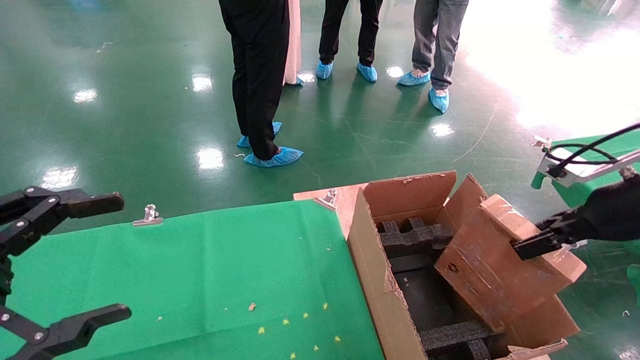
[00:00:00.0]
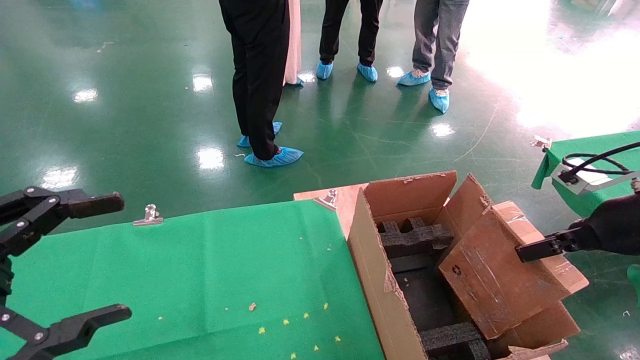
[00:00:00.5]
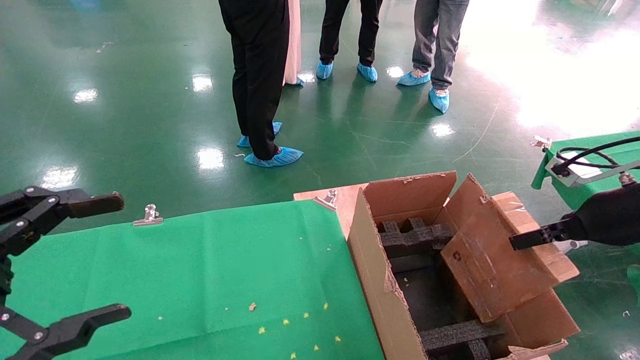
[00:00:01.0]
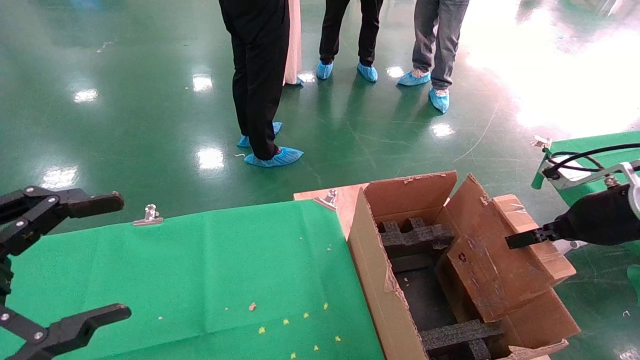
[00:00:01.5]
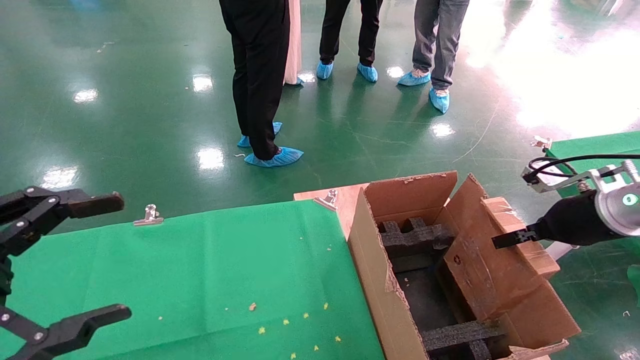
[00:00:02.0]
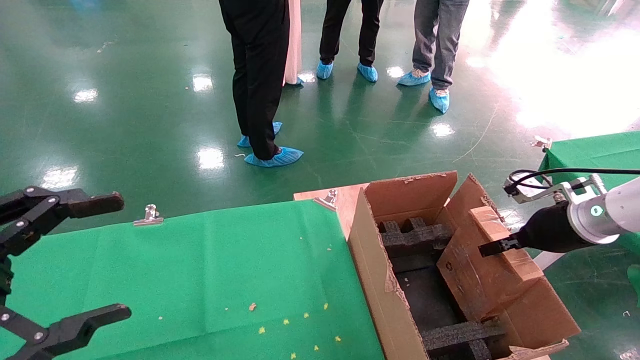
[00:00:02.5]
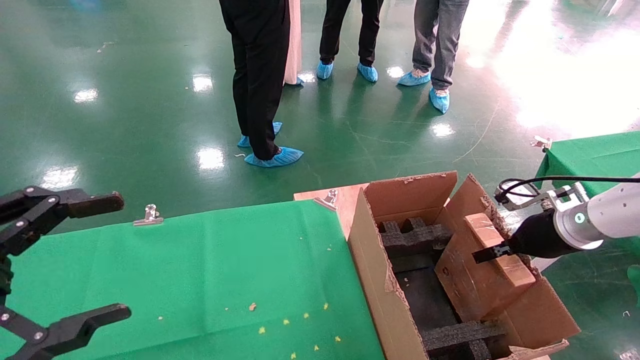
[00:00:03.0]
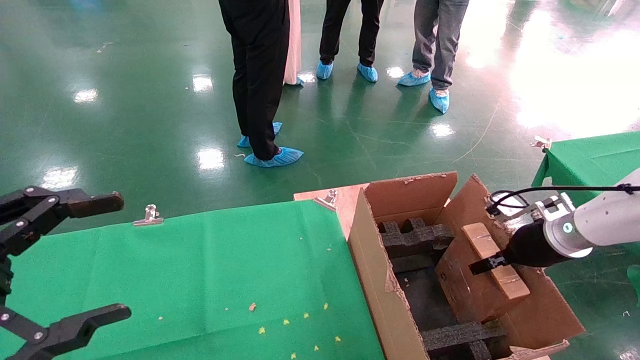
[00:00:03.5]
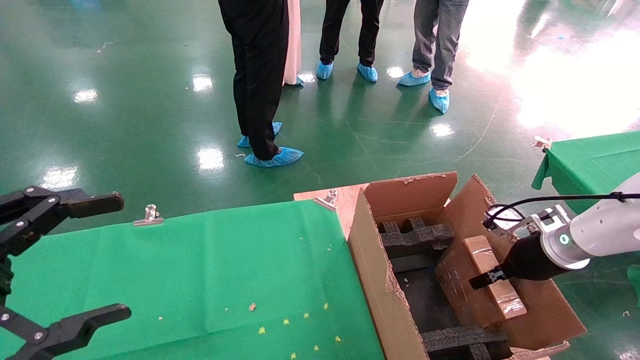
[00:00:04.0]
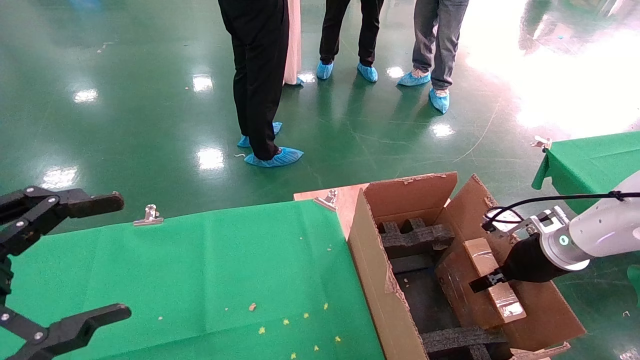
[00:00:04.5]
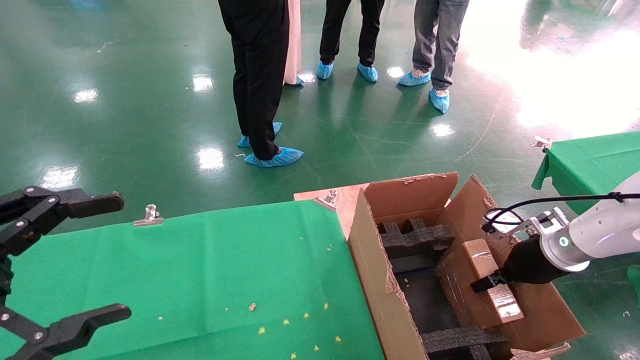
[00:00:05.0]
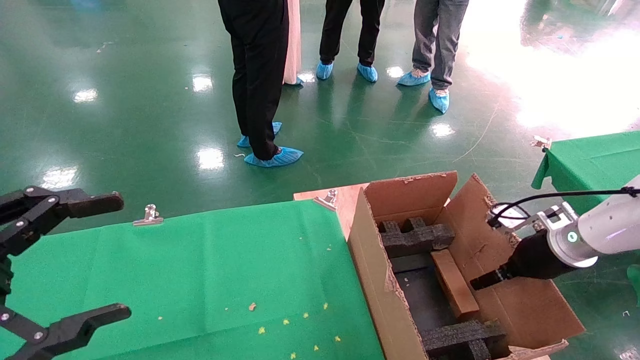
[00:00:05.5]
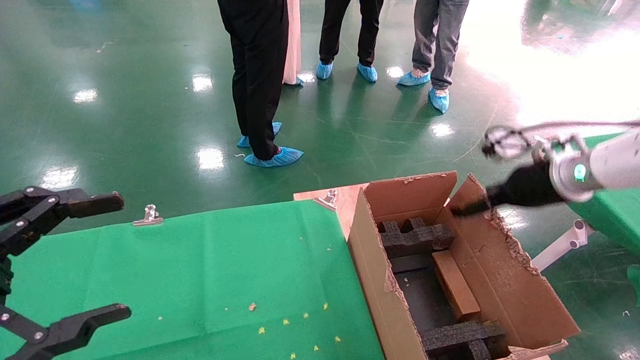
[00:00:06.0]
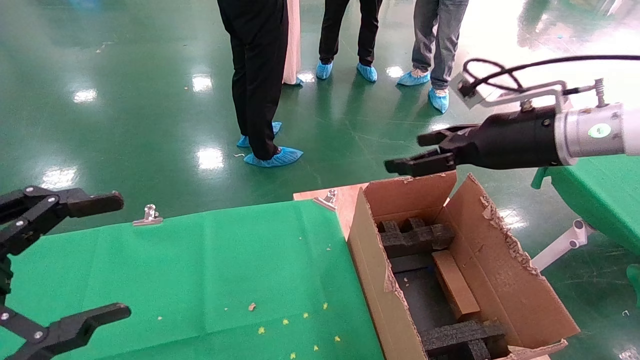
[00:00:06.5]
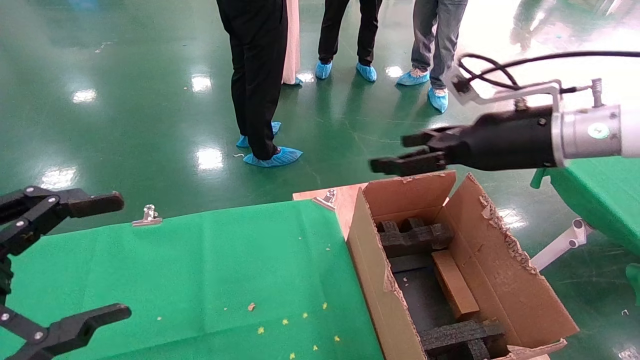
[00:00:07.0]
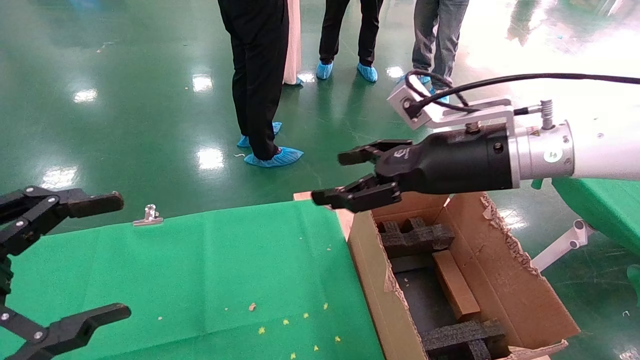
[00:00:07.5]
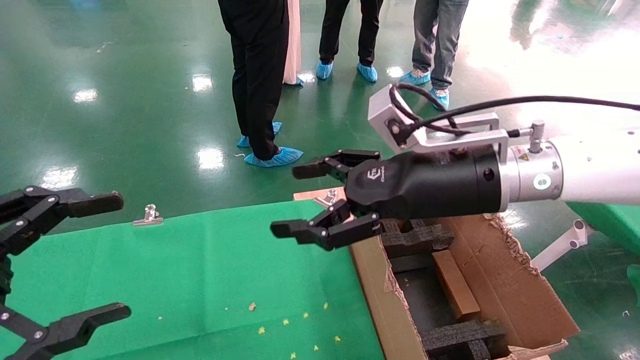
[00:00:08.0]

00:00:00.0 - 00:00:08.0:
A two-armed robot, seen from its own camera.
Task of the whole recording: using a robotic arm to pick up a cardboard box and palace it the carton.
Step, 00:00:00.0 - 00:00:06.0: Place the mouse and the power cord paper box into the container.
00:00:00.0 - 00:00:02.0: The right gripper heads forward, covering some 5 cm.
00:00:02.0 - 00:00:04.0: The right gripper heads downward, covering roughly 10 cm.
00:00:04.0 - 00:00:06.0: The right gripper heads upward, covering approximately 10 cm, and opens up.
00:00:06.0 - 00:00:08.0: The right gripper heads to the left, covering some 20 cm.
